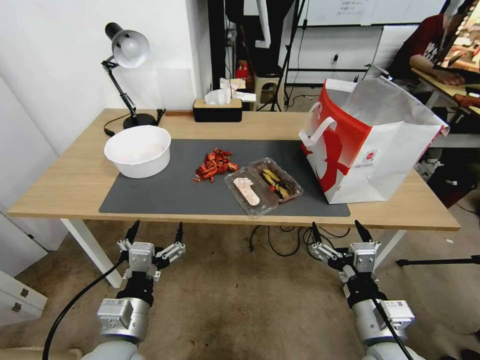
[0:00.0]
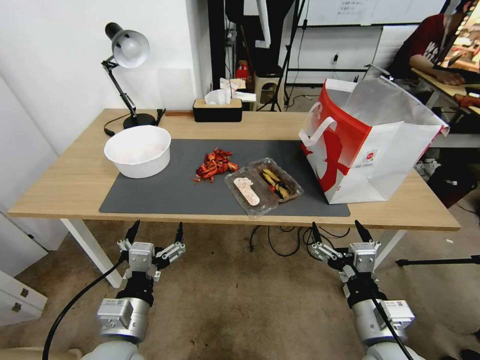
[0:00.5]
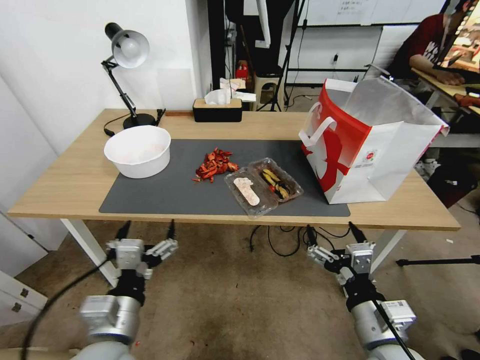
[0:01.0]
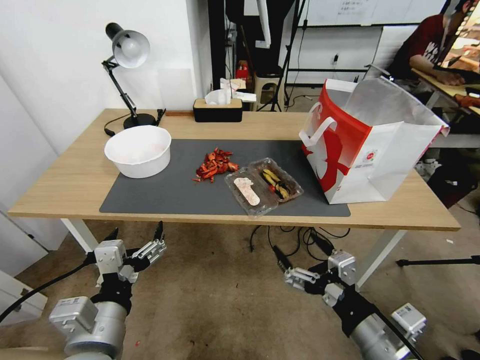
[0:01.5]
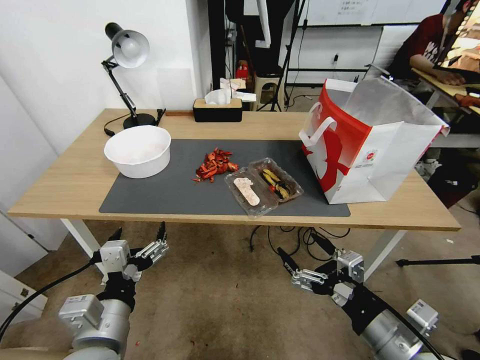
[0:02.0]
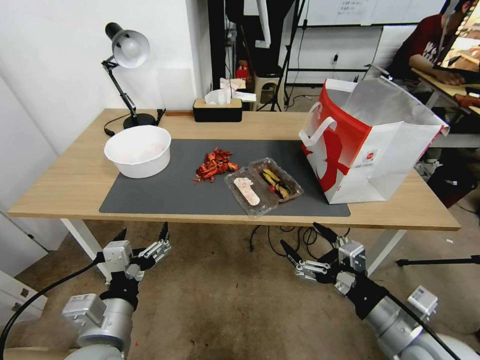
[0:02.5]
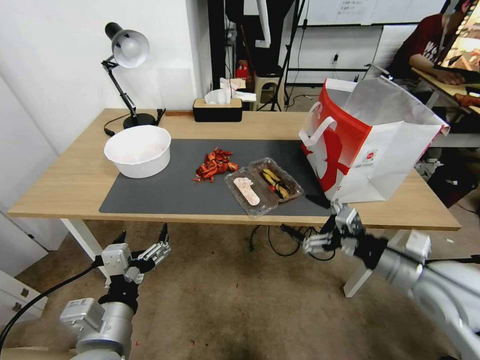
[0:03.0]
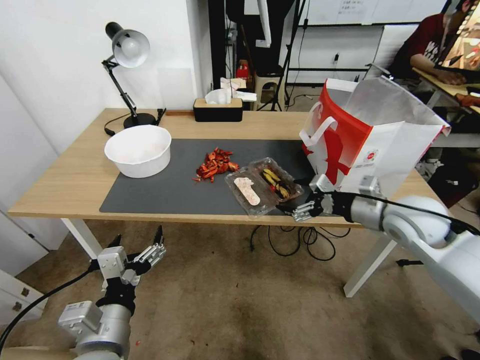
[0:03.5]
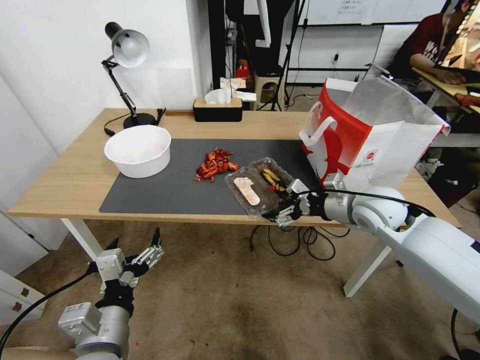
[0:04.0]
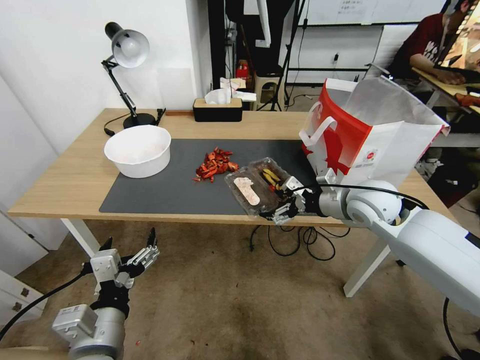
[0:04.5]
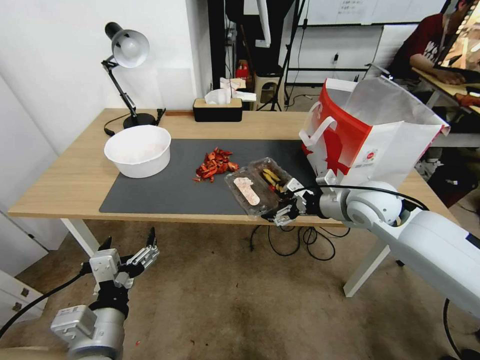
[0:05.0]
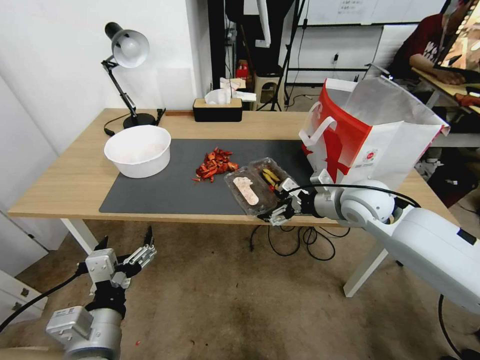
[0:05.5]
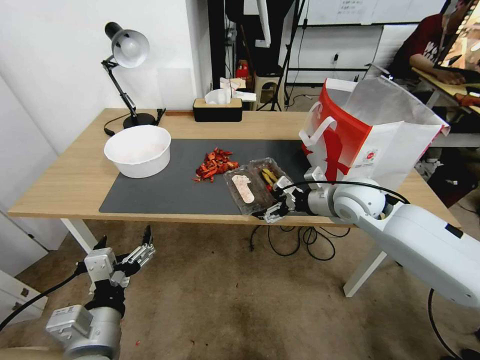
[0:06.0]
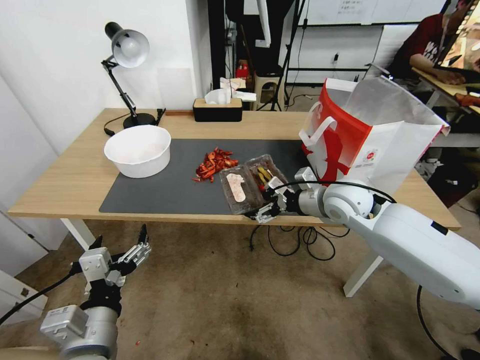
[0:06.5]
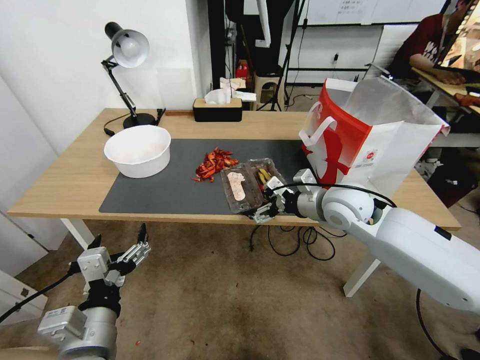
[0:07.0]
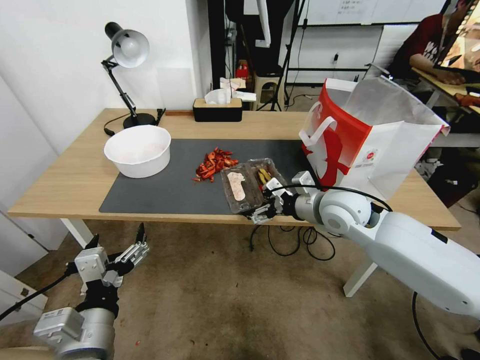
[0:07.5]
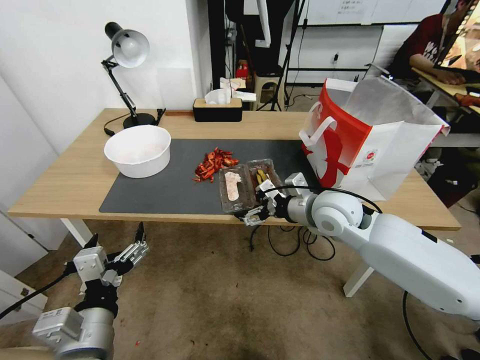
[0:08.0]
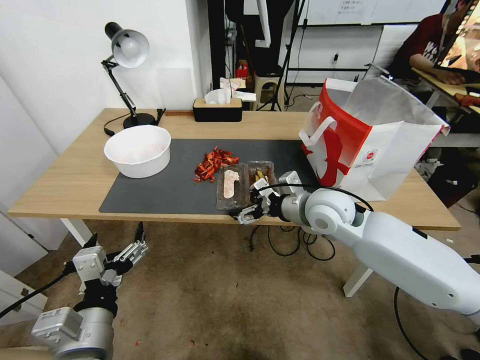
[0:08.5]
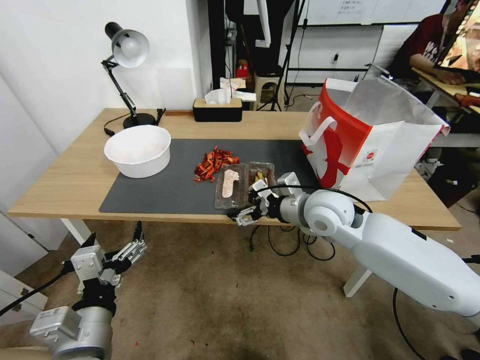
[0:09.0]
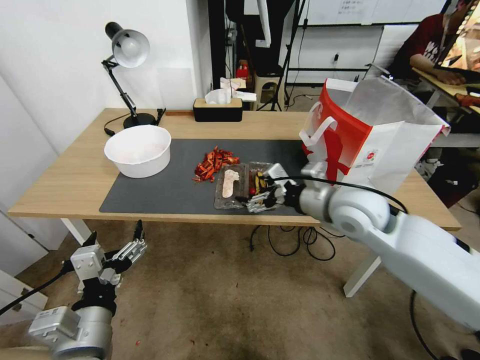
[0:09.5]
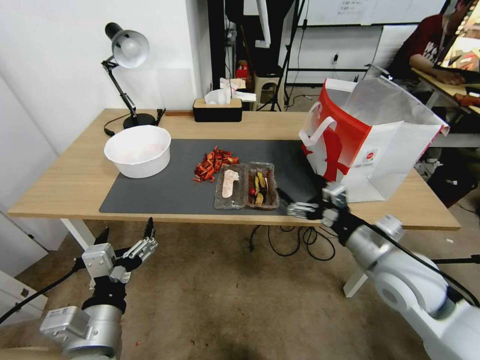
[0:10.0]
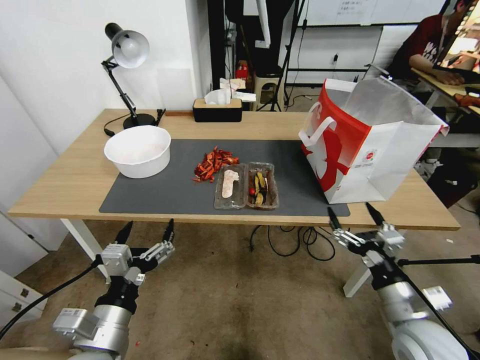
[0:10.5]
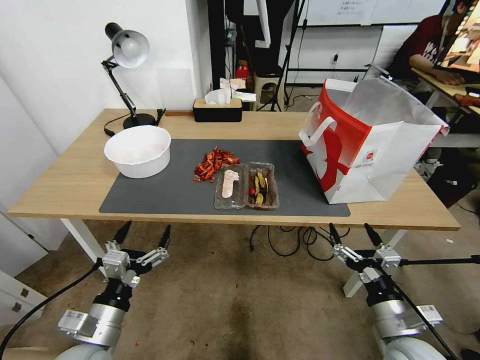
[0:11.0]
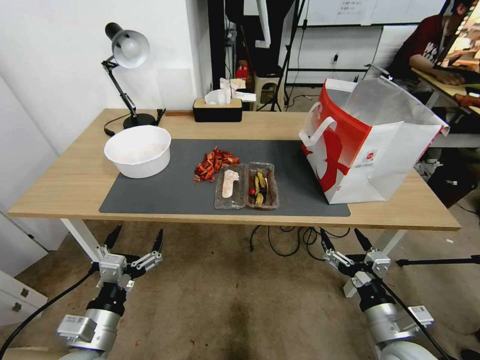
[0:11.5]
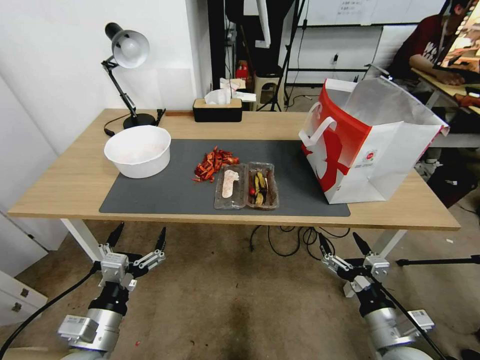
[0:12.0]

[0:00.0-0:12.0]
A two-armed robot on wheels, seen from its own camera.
0:02.0 to 0:04.0: The right gripper travels forward by approximately 30 cm.
0:04.0 to 0:06.0: The grippers stay close to where they were, moving slightly.
0:06.0 to 0:08.0: The right gripper shifts approximately 5 cm to the left.
0:08.0 to 0:10.0: The right gripper travels backward and to the right by approximately 15 cm.
0:10.0 to 0:12.0: The left gripper goes approximately 5 cm downward. Meanwhile the right gripper heads downward and backward, covering approximately 15 cm.

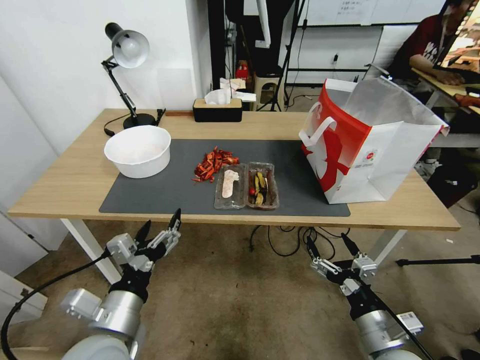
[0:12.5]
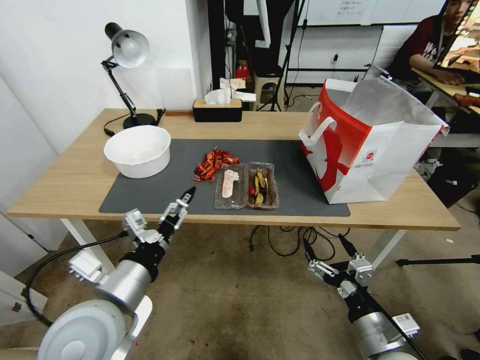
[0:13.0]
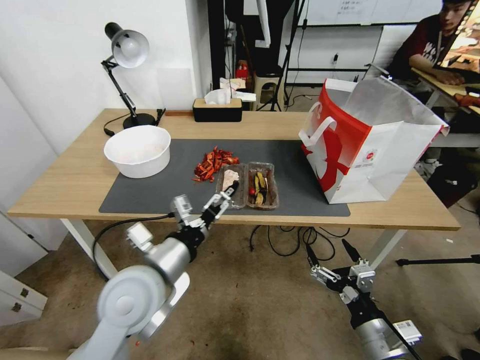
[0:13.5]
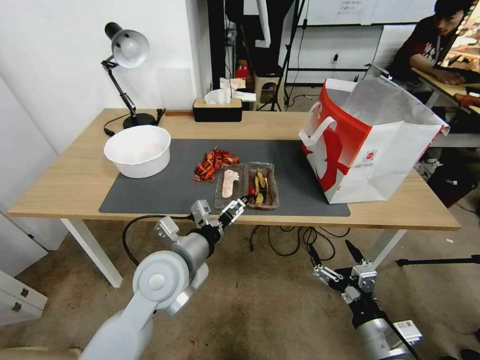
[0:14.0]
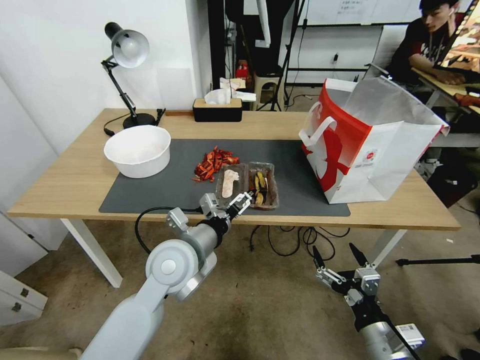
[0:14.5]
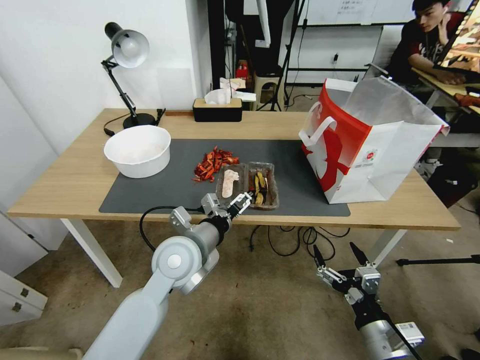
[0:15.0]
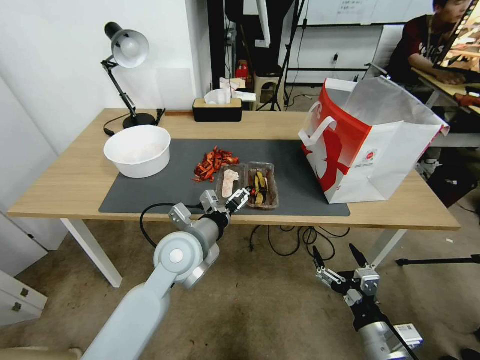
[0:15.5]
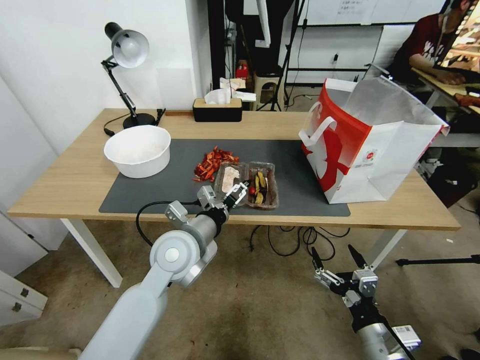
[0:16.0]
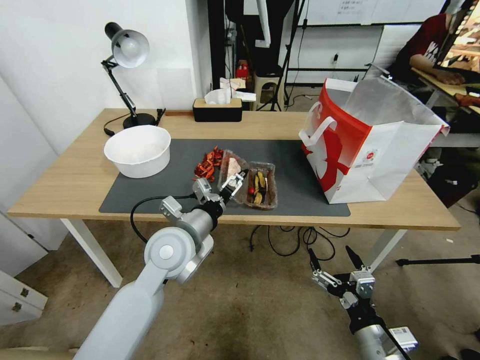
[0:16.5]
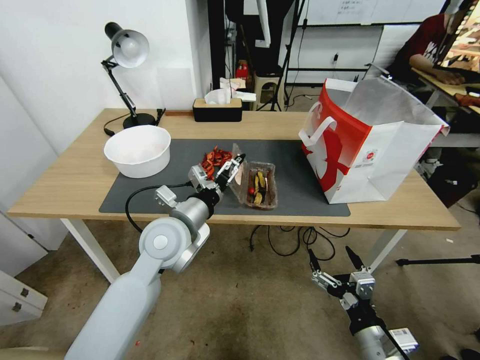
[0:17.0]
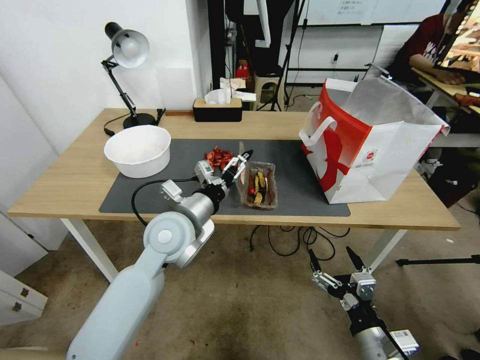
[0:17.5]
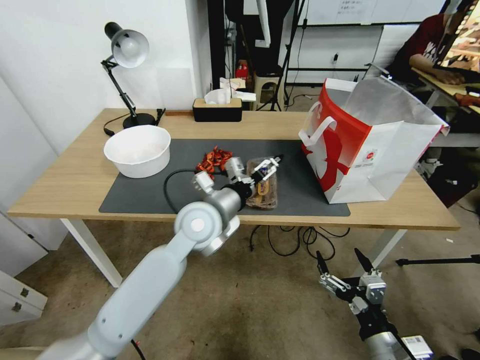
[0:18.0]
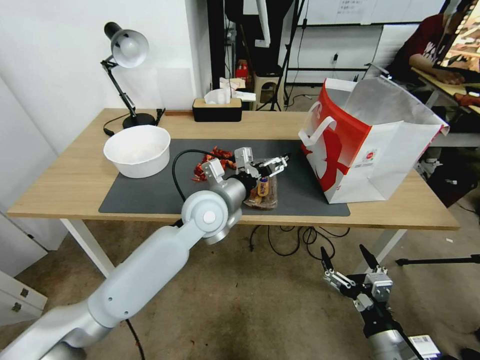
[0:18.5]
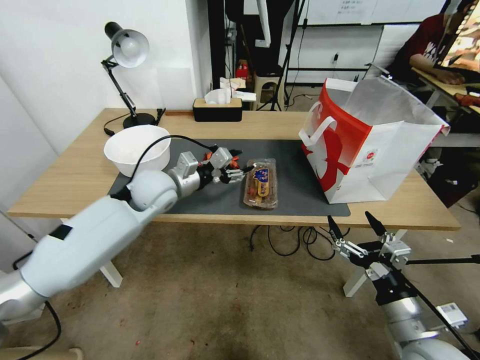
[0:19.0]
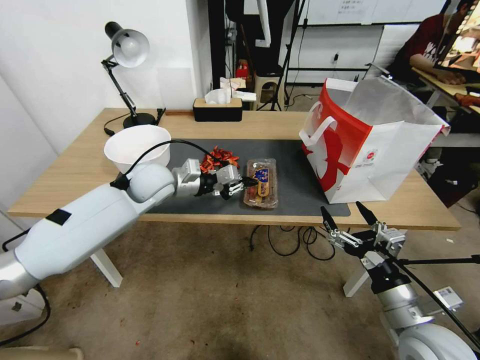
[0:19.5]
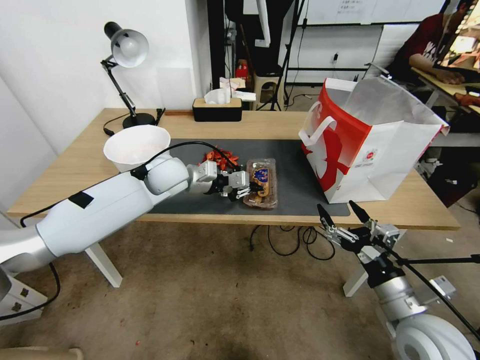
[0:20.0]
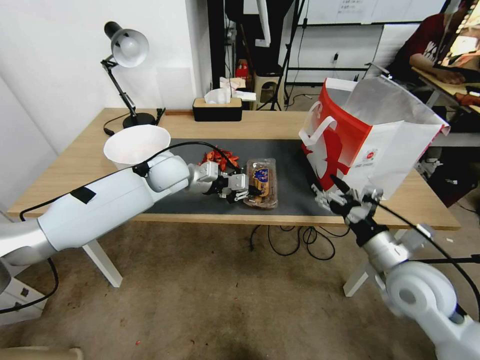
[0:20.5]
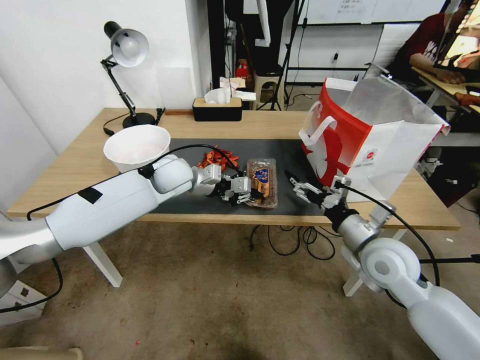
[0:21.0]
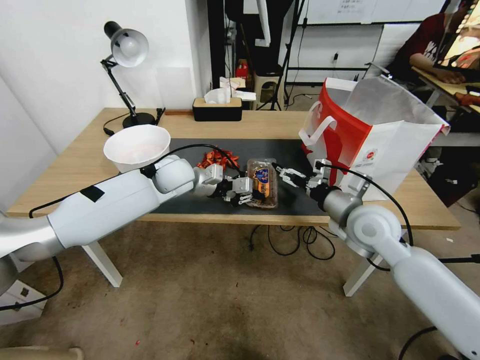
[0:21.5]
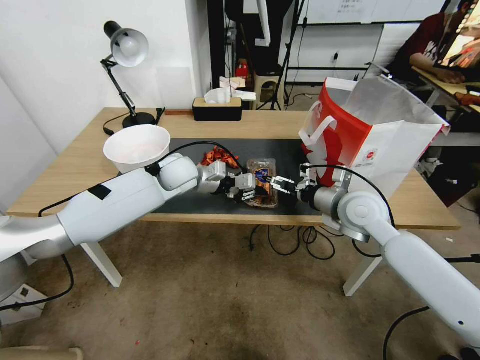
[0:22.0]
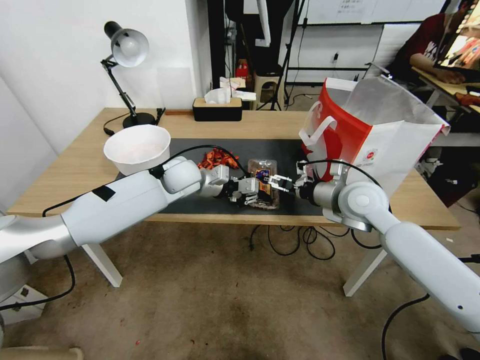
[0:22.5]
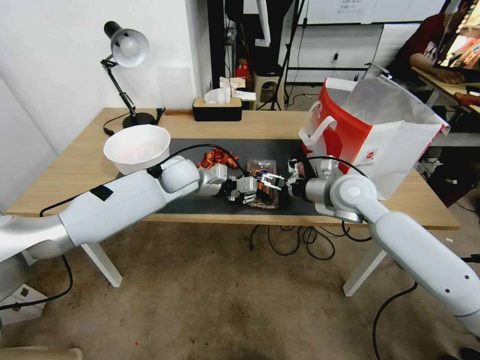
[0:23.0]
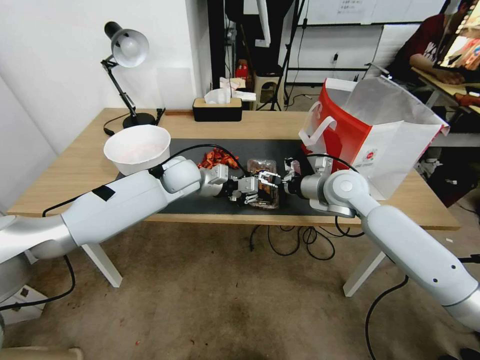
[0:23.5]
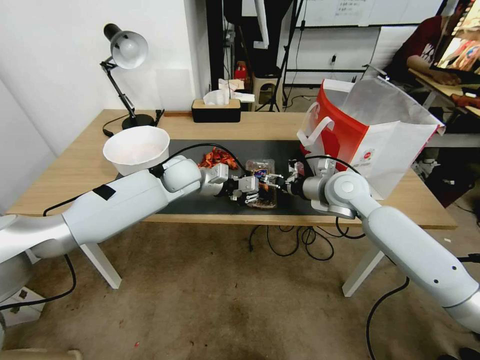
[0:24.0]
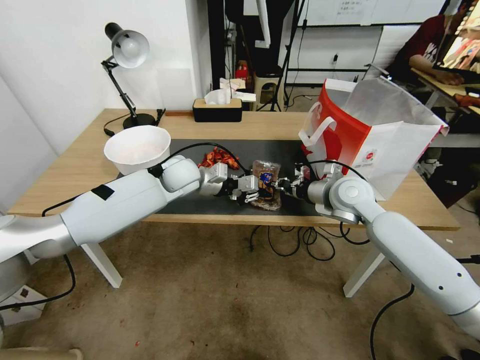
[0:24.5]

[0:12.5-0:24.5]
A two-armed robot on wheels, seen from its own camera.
0:12.5 to 0:14.5: The left gripper moves forward and to the right, about 15 cm.
0:14.5 to 0:16.5: The grippers stay close to where they were, moving slightly.
0:16.5 to 0:18.5: The left gripper heads forward and to the right, covering approximately 10 cm.
0:18.5 to 0:20.5: The left gripper goes about 15 cm forward and to the left, and closes its fingers. Meanwhile the right gripper travels forward and upward by roughly 15 cm.
0:20.5 to 0:22.5: The right gripper goes about 15 cm forward.
0:22.5 to 0:24.5: The right gripper closes up.

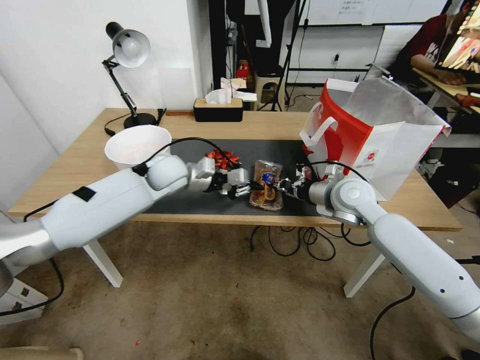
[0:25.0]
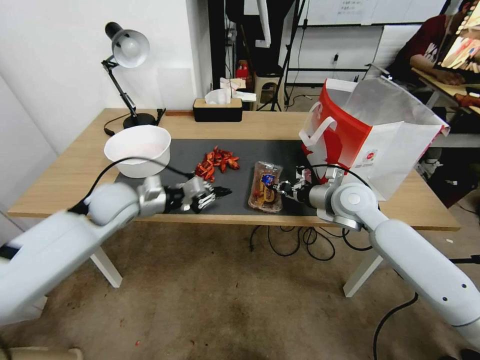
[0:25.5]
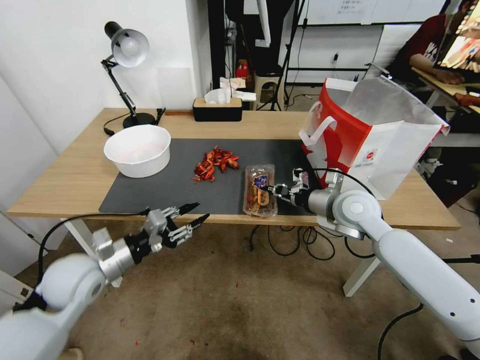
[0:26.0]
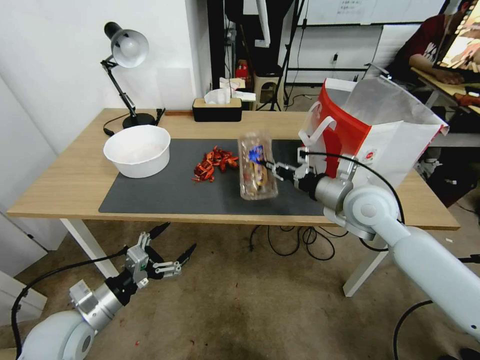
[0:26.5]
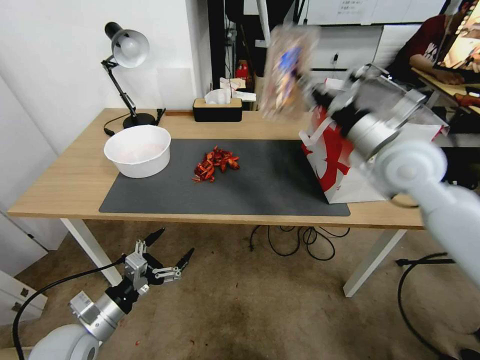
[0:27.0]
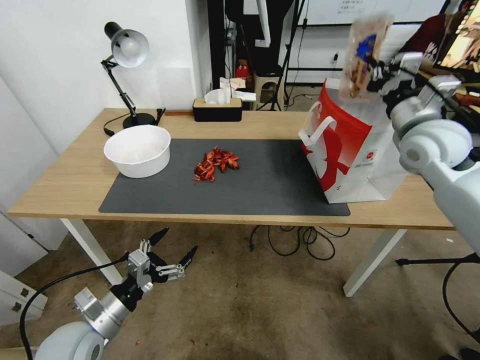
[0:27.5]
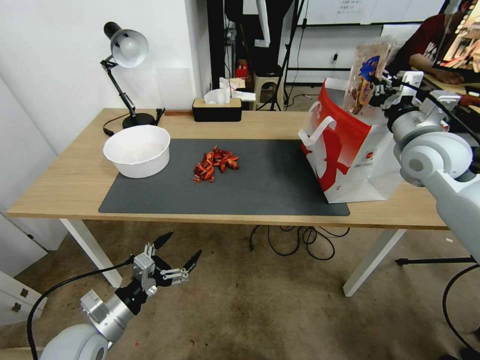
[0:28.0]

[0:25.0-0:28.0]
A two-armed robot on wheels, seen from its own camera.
0:25.0 to 0:26.5: The left gripper moves backward, to the left and downward, some 35 cm, and opens up. Meanwhile the right gripper shifts about 5 cm backward.
0:26.5 to 0:28.0: The right gripper travels to the right, upward and forward by some 15 cm.
